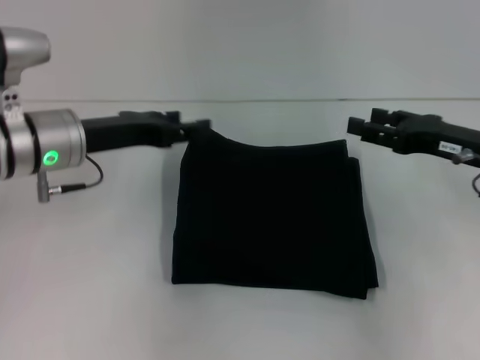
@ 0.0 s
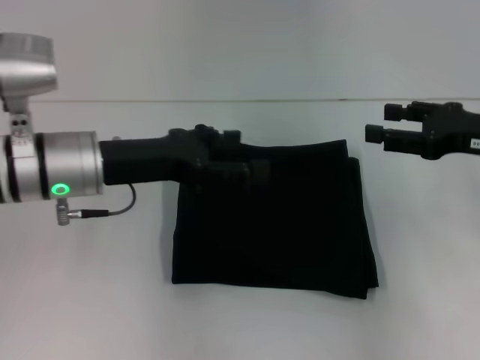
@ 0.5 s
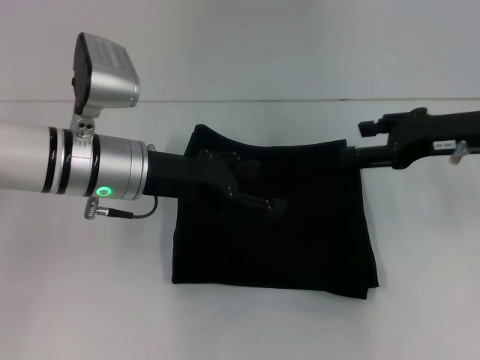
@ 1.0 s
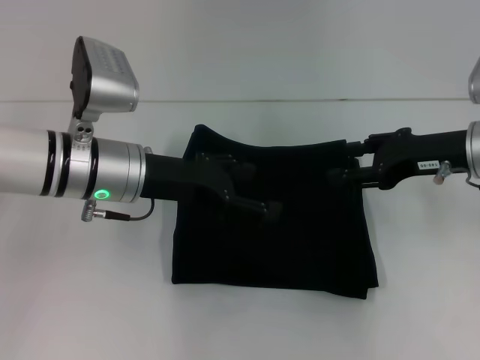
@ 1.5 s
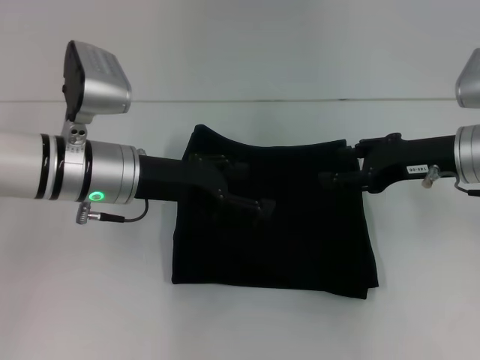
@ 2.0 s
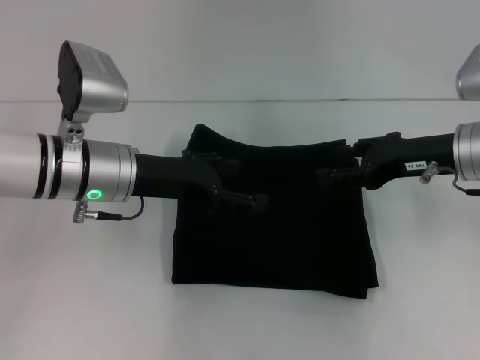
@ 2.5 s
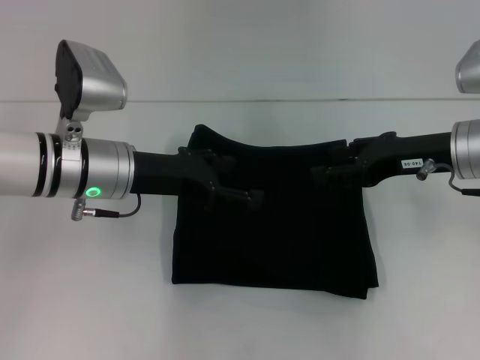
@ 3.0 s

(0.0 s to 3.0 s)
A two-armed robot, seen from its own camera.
0.0 s - 1.5 s: The left gripper heads to the right, covering some 5 cm, and opens its fingers.
1.5 s - 3.0 s: The grippers move only a little.

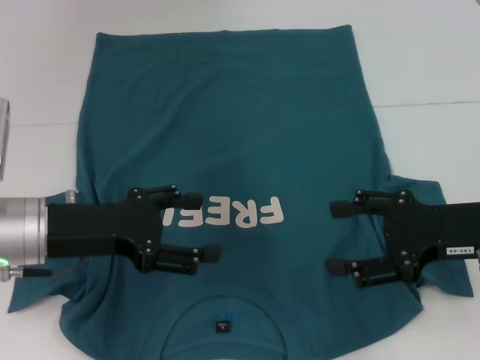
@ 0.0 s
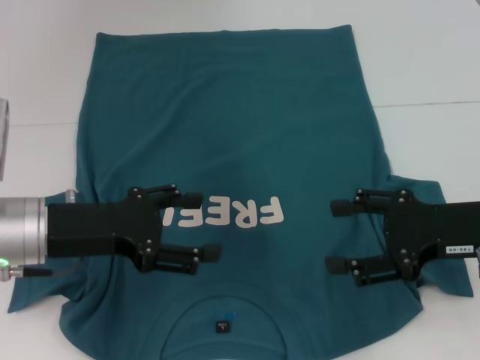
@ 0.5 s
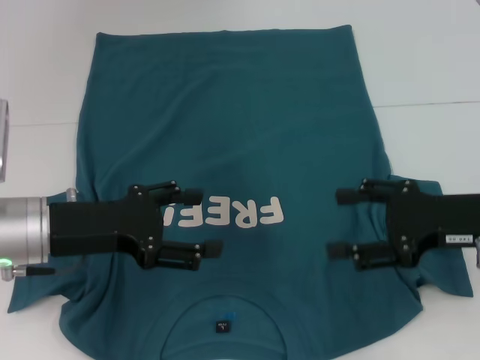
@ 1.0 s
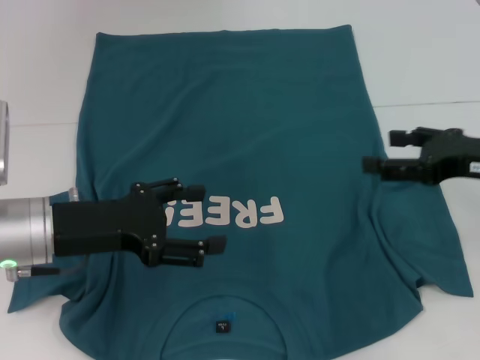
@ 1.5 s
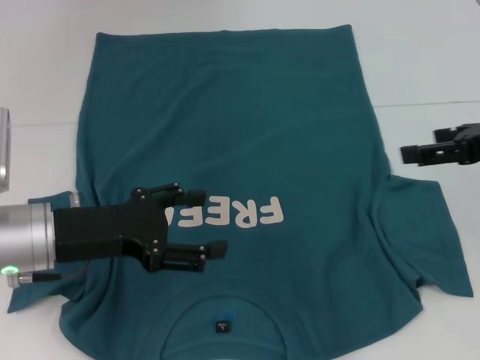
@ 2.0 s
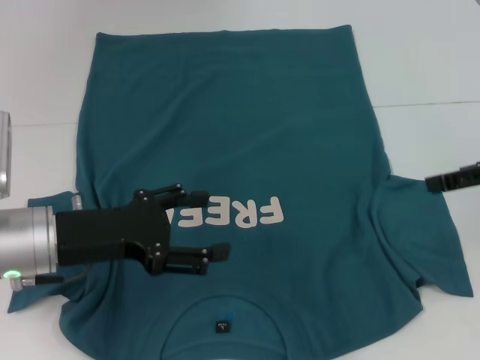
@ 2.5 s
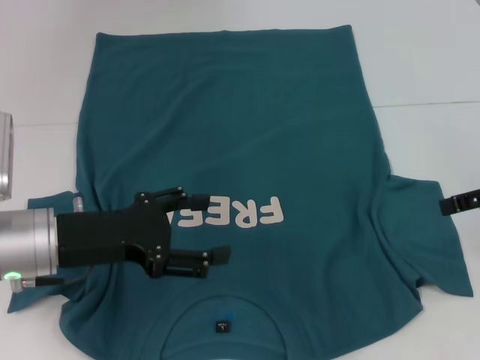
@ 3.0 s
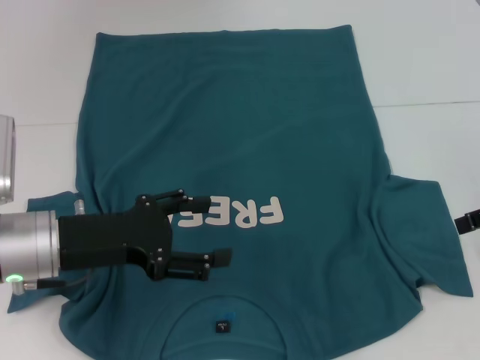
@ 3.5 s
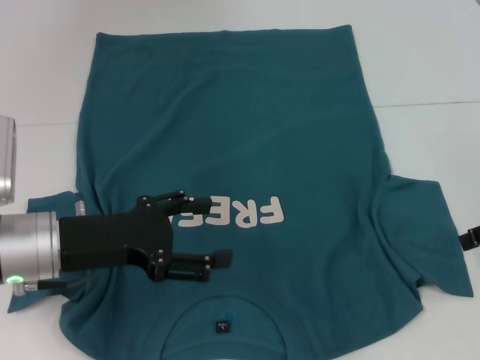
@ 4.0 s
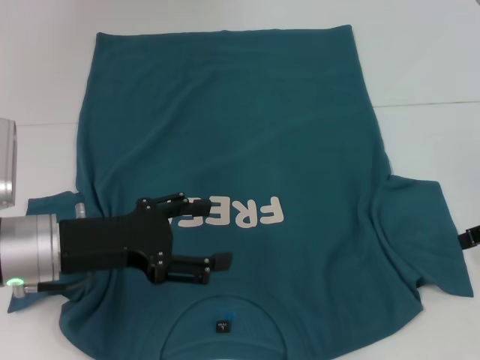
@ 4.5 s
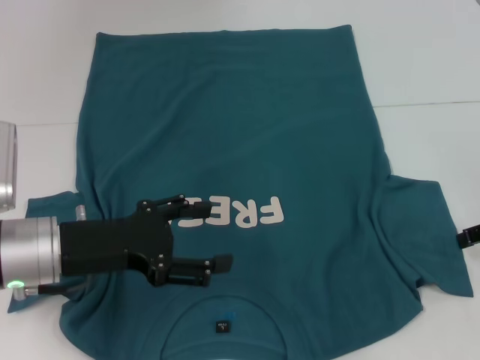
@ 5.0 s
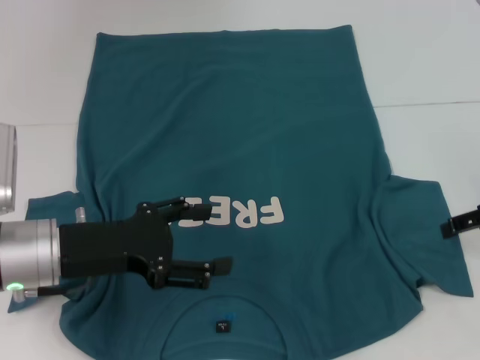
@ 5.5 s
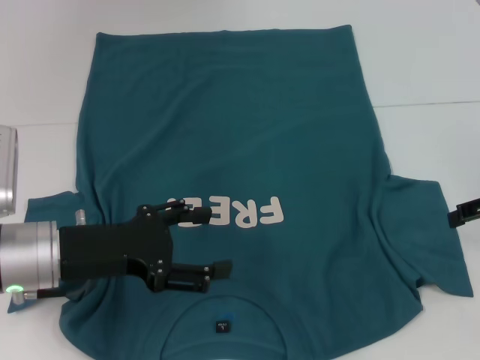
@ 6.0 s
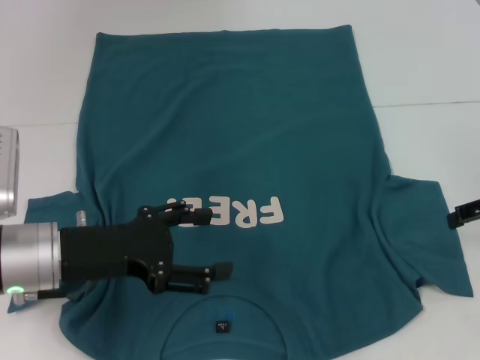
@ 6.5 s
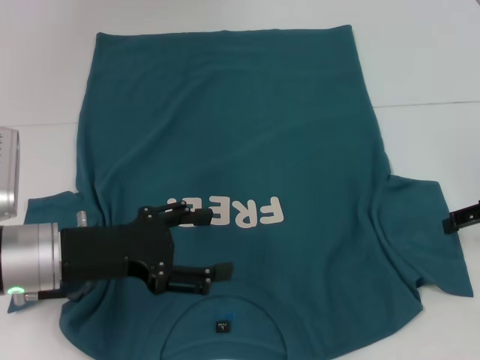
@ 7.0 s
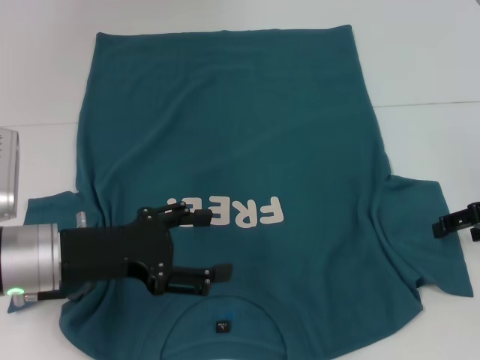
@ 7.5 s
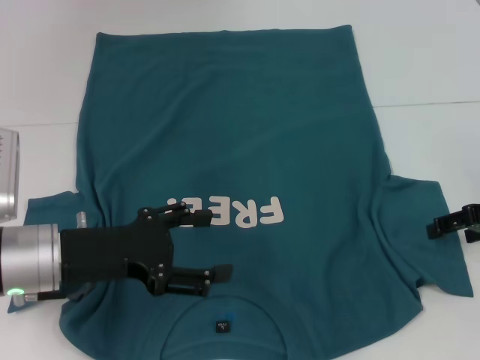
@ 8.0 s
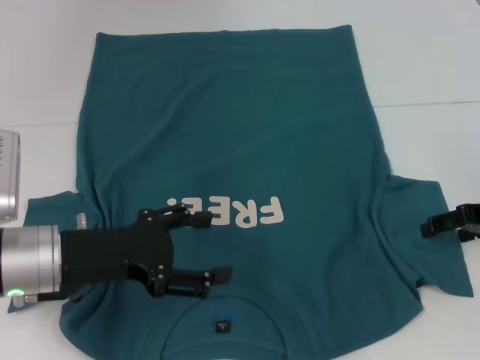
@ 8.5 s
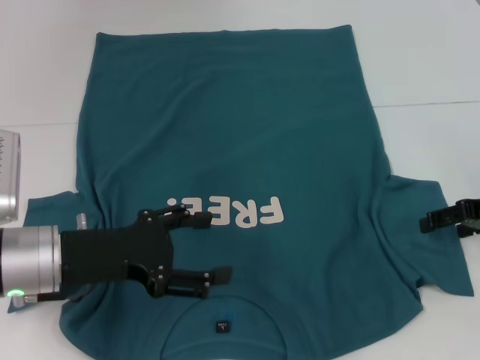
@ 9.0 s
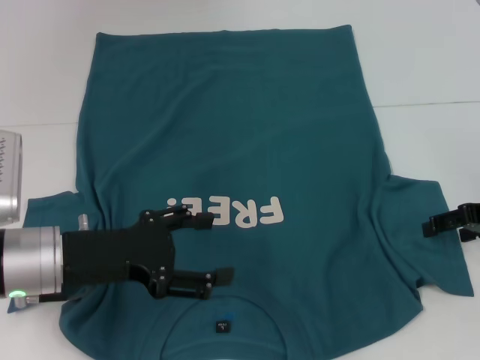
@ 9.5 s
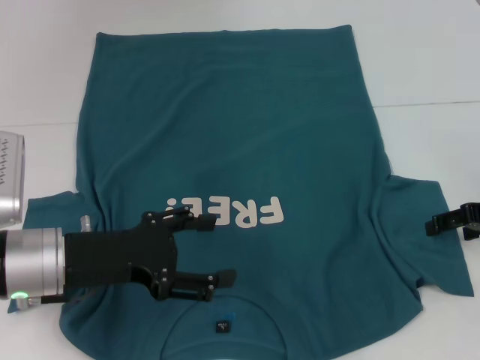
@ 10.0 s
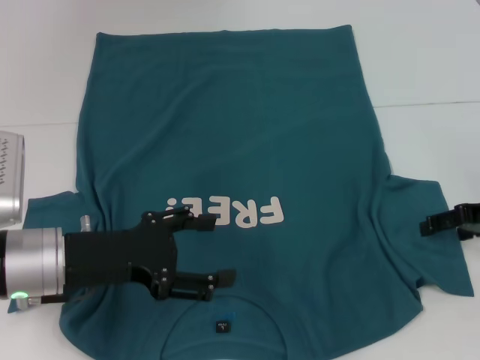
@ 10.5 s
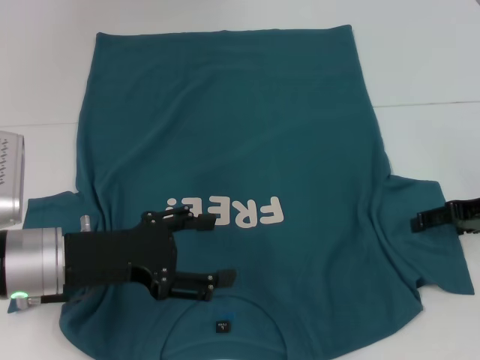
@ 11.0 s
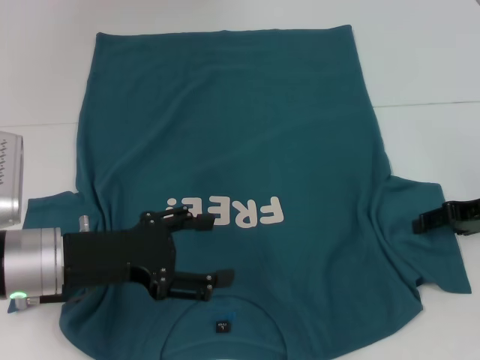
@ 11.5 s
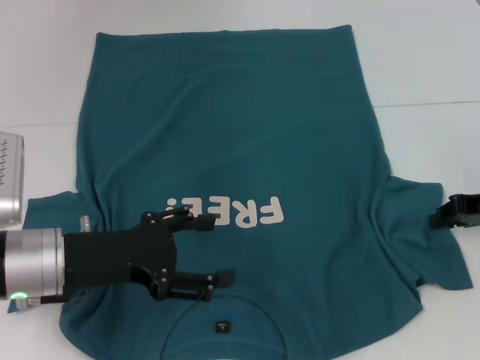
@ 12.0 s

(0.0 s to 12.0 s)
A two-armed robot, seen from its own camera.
0.0 s - 2.0 s: The right gripper heads upward, covering roughly 5 cm.
2.0 s - 4.0 s: The right gripper shifts by about 5 cm.
4.0 s - 6.0 s: There are only small adjustments of the grippers.
6.0 s - 8.0 s: The grippers make only small movements.
8.0 s - 10.0 s: The two grippers keep their place.
10.0 s - 12.0 s: The right gripper closes its fingers.

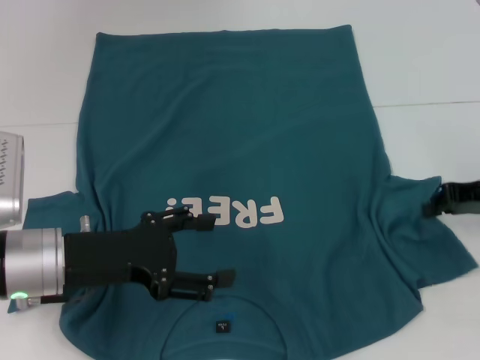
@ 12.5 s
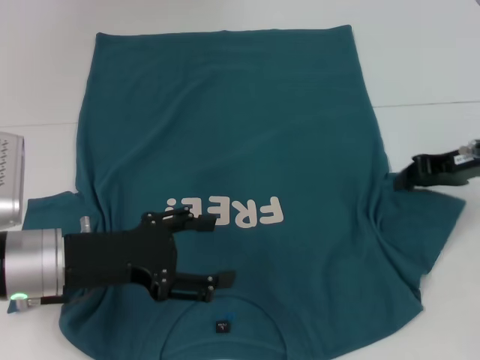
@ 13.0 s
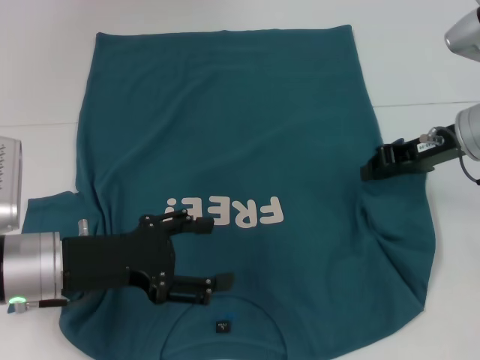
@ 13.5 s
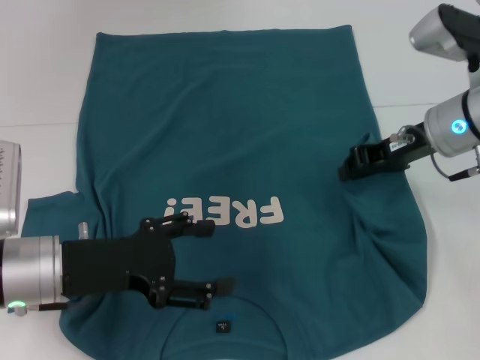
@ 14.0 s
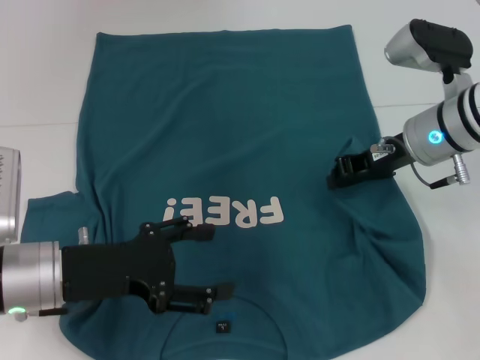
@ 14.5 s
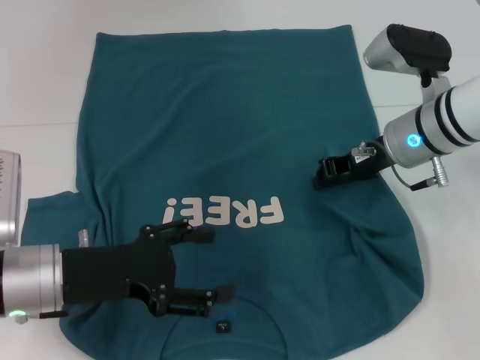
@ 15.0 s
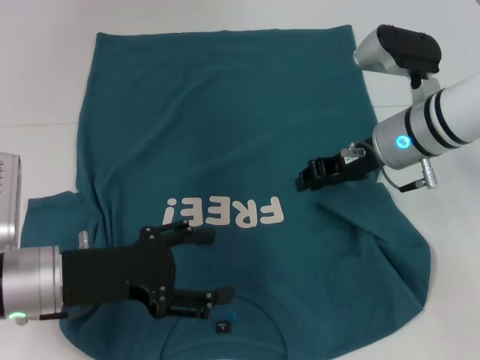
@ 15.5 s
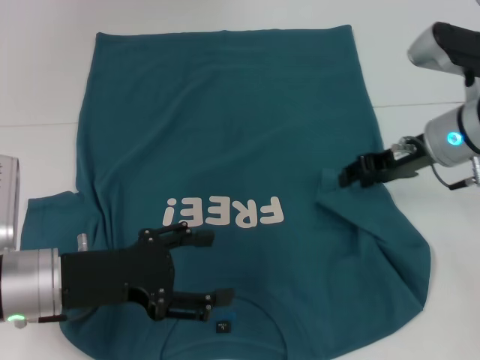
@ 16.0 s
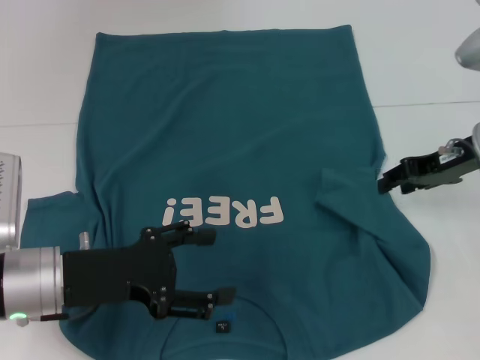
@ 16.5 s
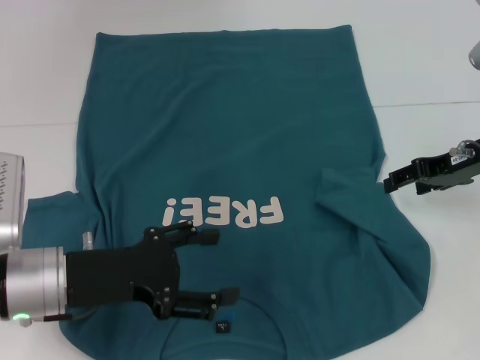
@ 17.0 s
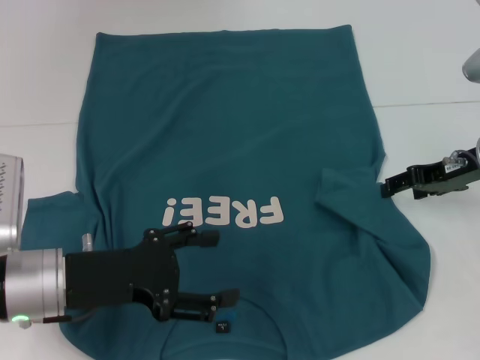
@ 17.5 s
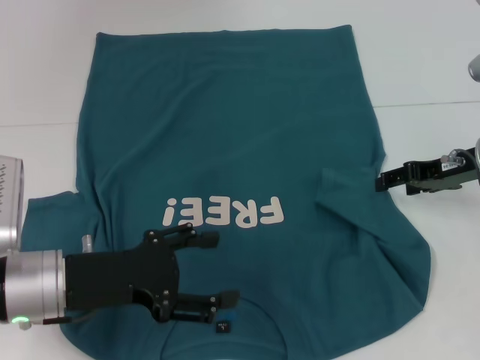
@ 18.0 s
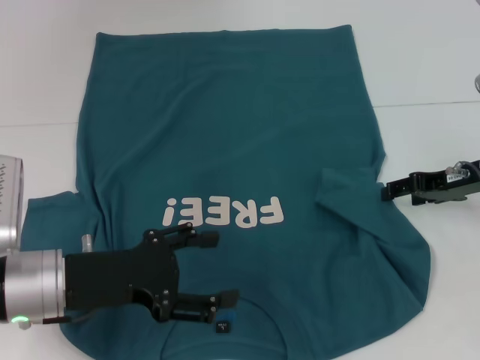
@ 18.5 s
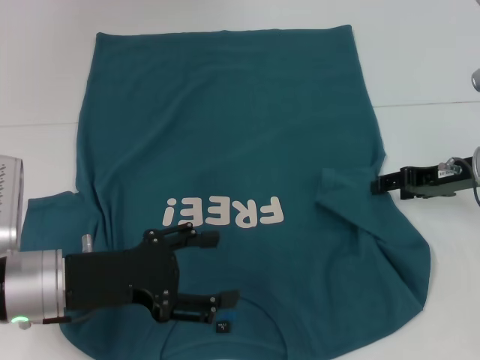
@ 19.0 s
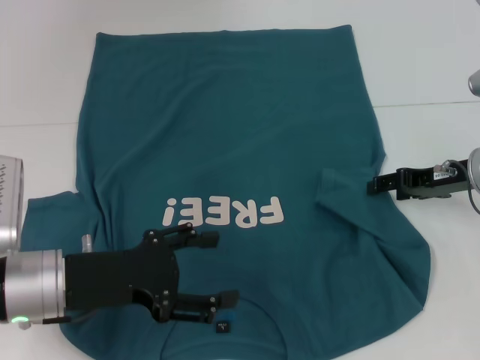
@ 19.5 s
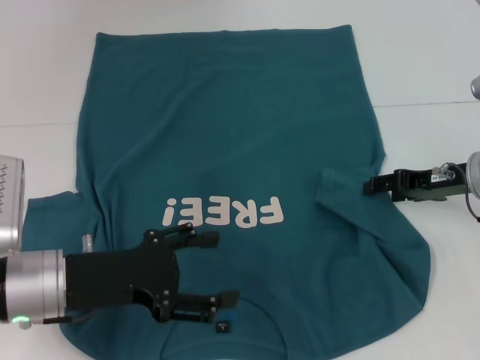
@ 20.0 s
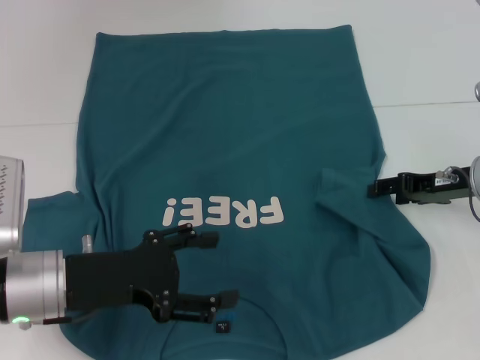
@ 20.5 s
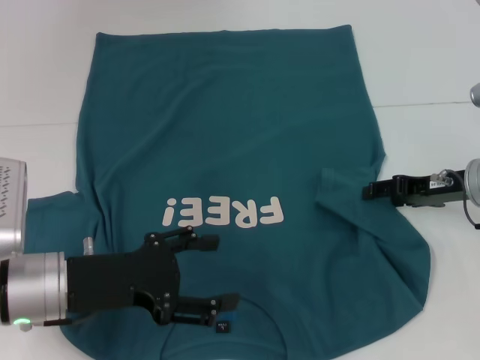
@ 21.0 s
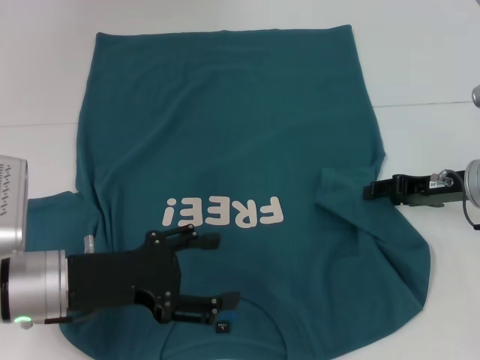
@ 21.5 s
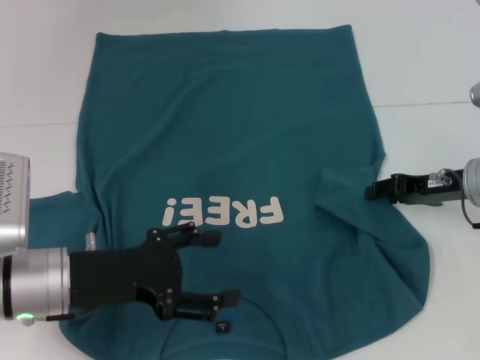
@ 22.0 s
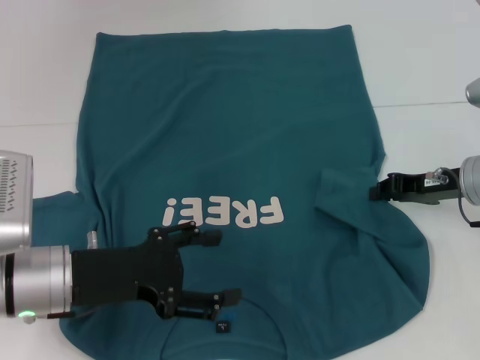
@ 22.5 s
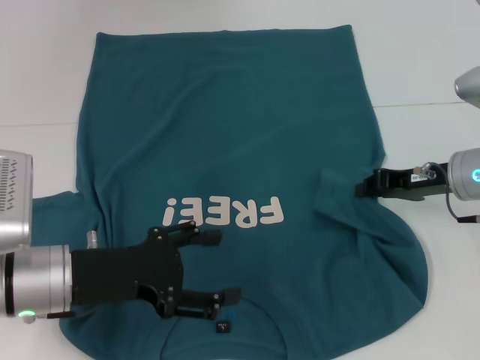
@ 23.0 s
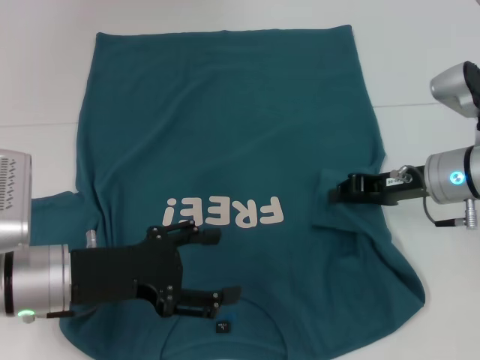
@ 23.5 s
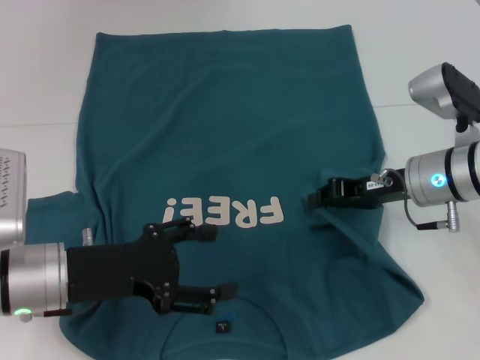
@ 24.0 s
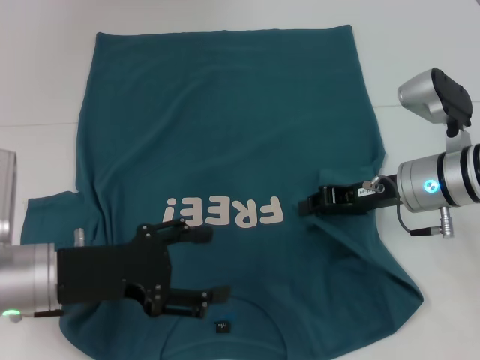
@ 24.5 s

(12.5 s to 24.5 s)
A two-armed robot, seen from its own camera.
12.5 s - 14.5 s: The right gripper is displaced to the left by approximately 10 cm.
14.5 s - 16.5 s: The right gripper travels to the right by about 5 cm, and opens its fingers.
16.5 s - 20.5 s: The grippers make only small movements.
20.5 s - 22.5 s: The right gripper closes up.
22.5 s - 24.5 s: The right gripper travels to the left by approximately 5 cm.
